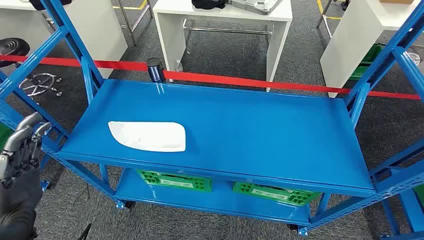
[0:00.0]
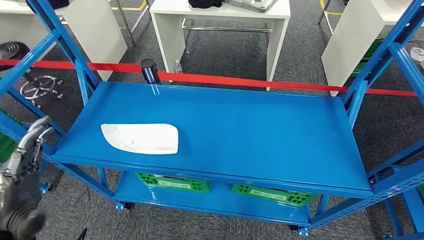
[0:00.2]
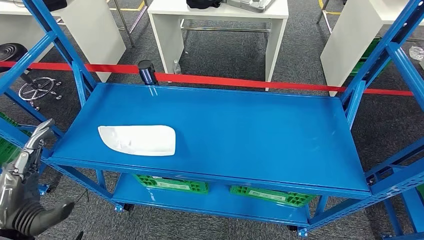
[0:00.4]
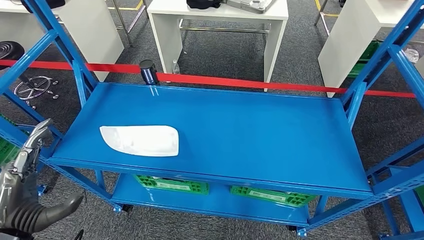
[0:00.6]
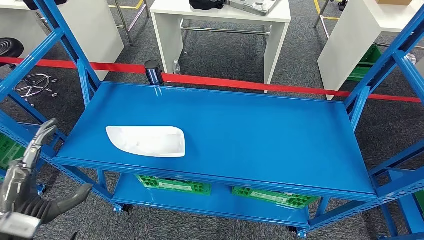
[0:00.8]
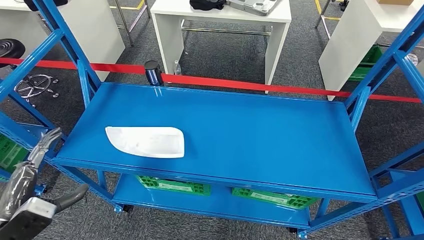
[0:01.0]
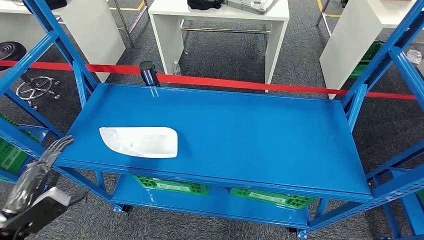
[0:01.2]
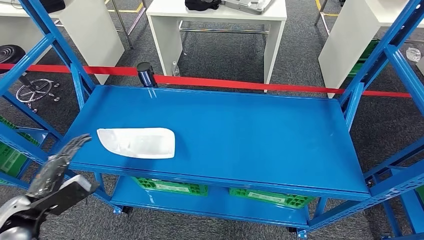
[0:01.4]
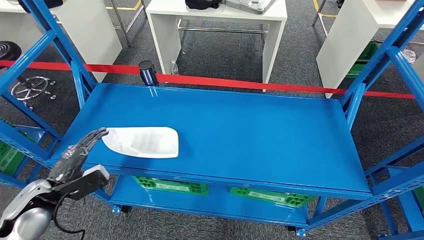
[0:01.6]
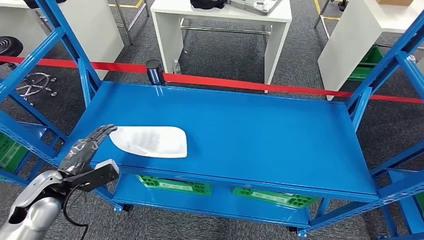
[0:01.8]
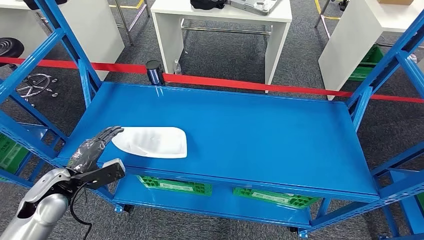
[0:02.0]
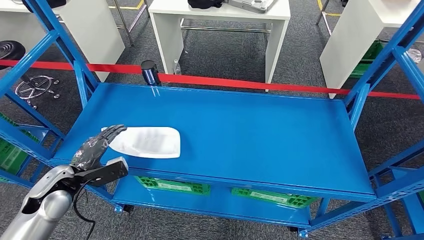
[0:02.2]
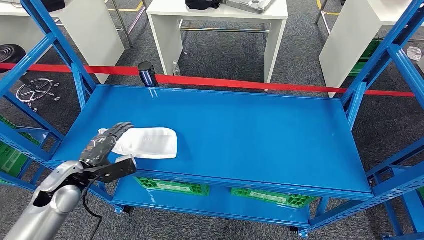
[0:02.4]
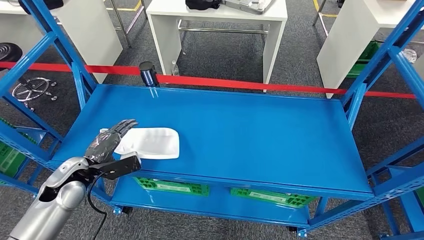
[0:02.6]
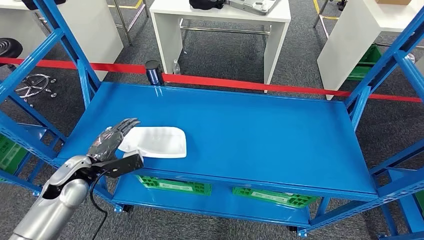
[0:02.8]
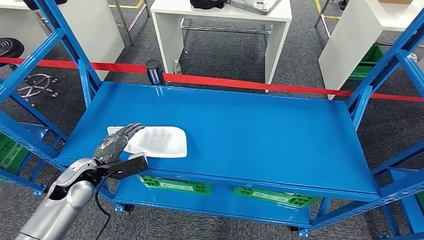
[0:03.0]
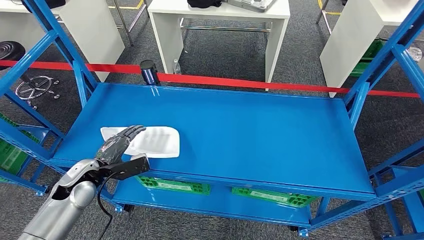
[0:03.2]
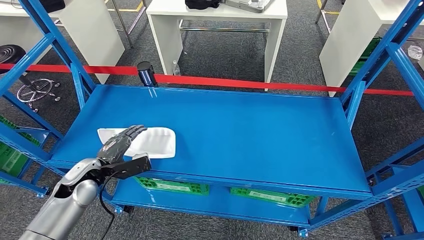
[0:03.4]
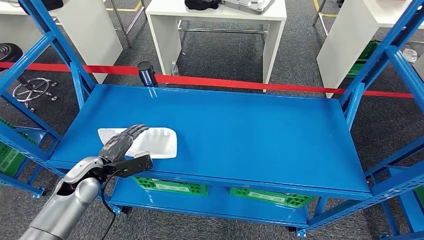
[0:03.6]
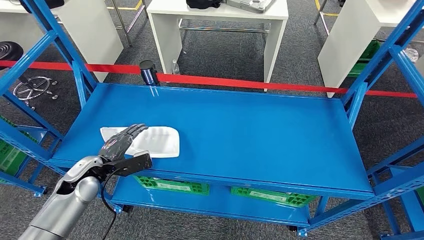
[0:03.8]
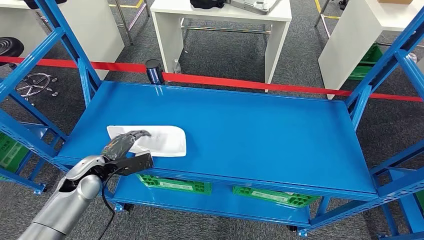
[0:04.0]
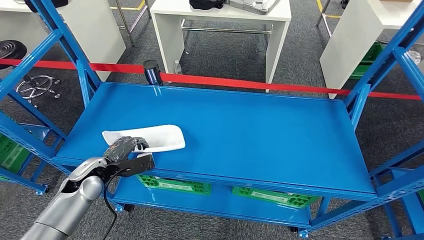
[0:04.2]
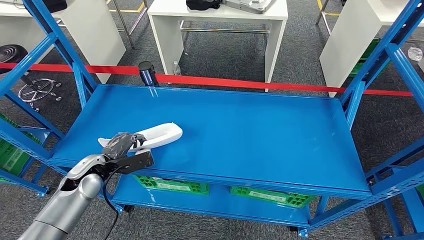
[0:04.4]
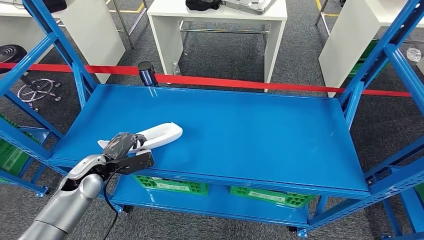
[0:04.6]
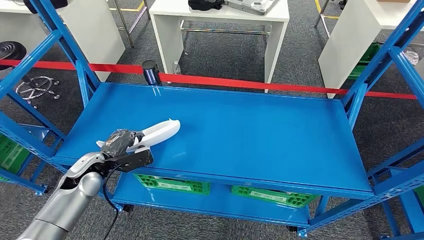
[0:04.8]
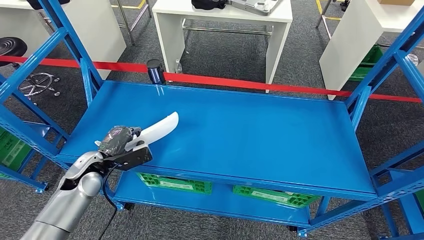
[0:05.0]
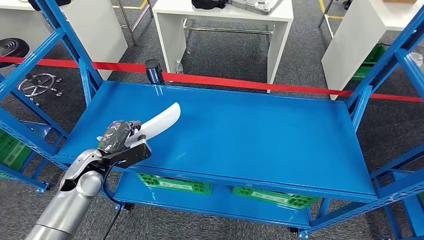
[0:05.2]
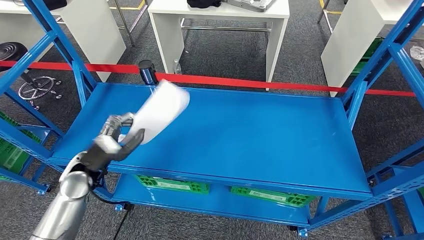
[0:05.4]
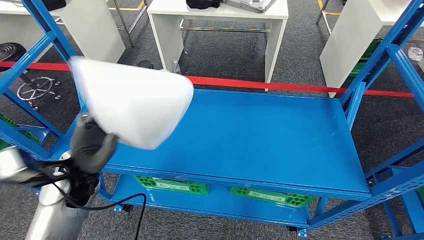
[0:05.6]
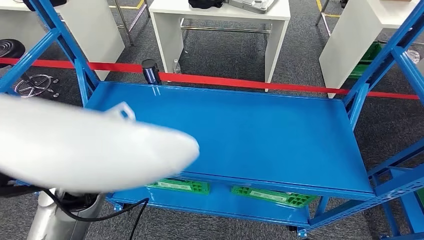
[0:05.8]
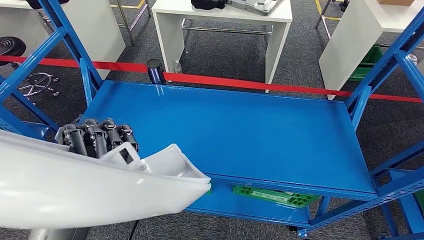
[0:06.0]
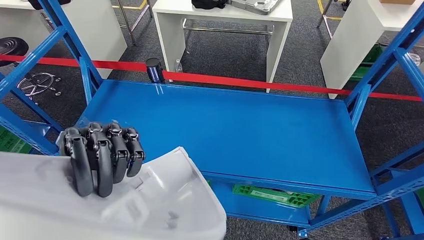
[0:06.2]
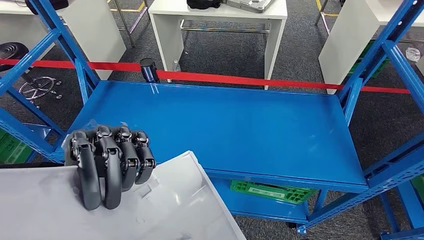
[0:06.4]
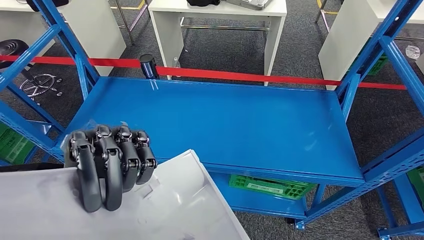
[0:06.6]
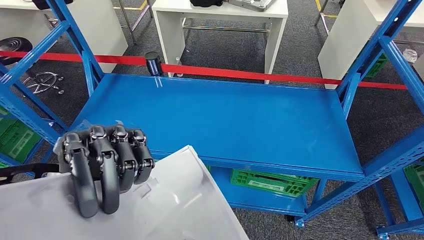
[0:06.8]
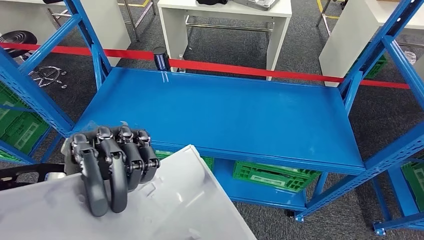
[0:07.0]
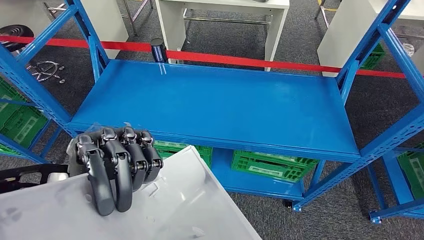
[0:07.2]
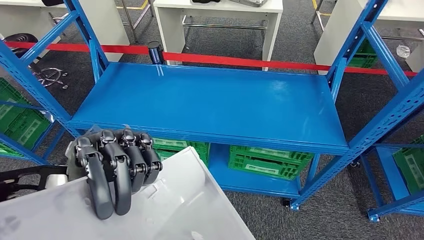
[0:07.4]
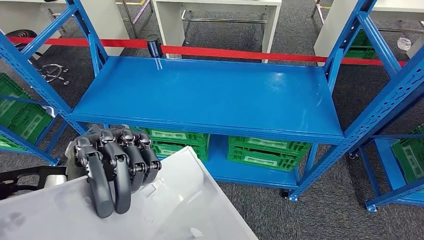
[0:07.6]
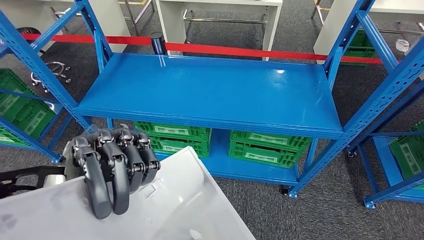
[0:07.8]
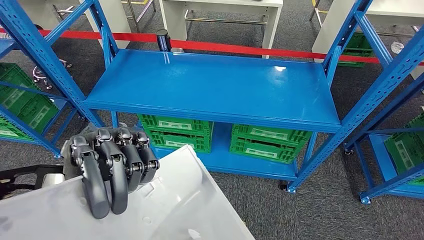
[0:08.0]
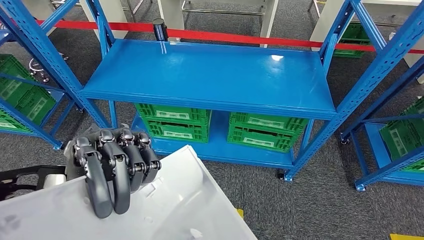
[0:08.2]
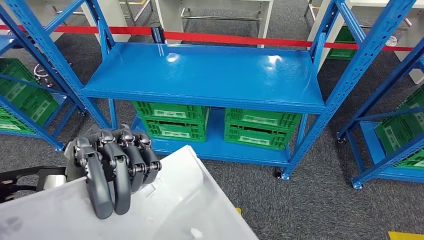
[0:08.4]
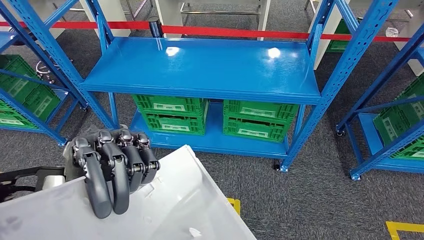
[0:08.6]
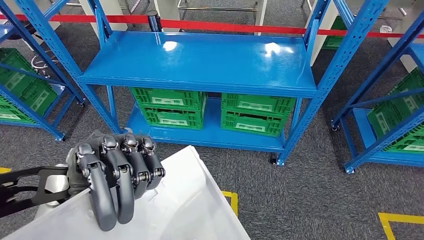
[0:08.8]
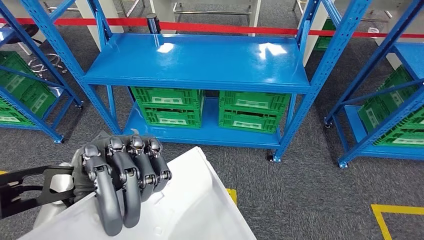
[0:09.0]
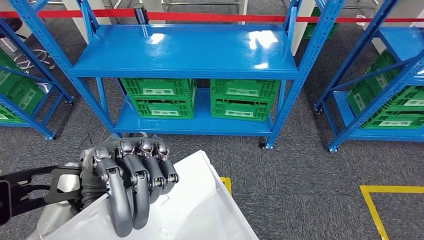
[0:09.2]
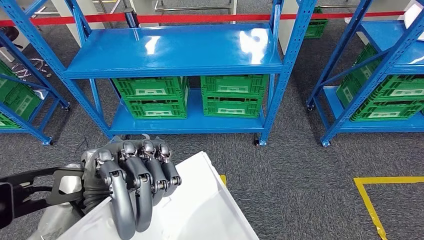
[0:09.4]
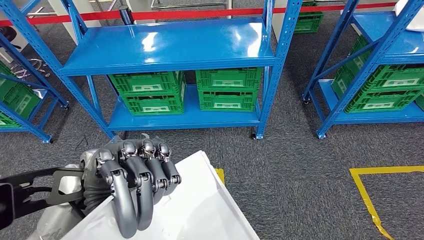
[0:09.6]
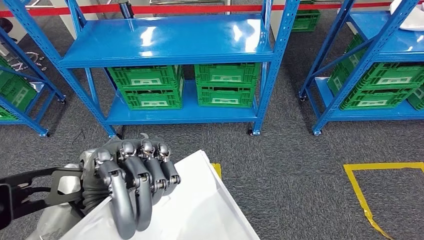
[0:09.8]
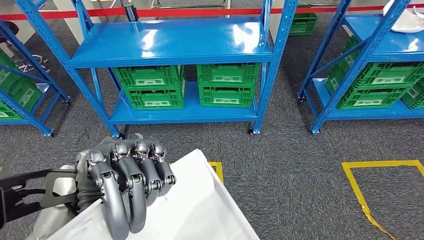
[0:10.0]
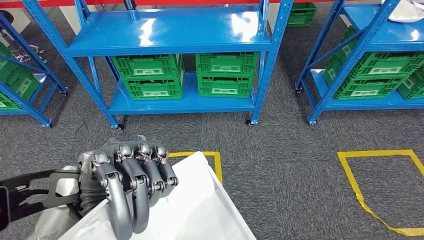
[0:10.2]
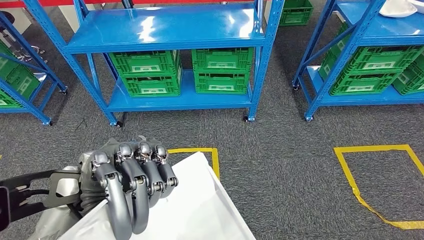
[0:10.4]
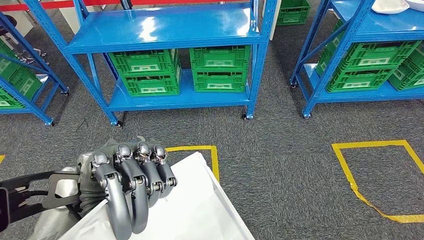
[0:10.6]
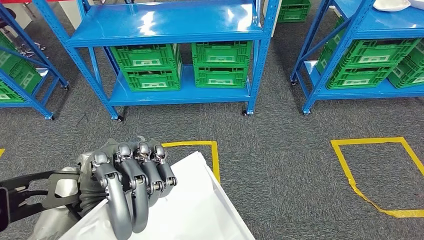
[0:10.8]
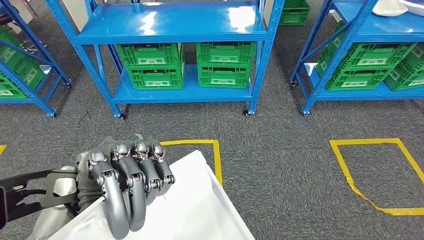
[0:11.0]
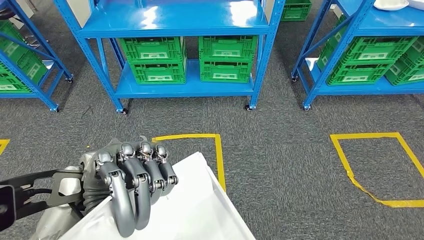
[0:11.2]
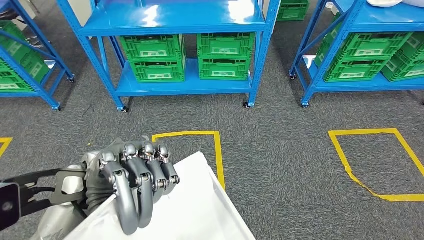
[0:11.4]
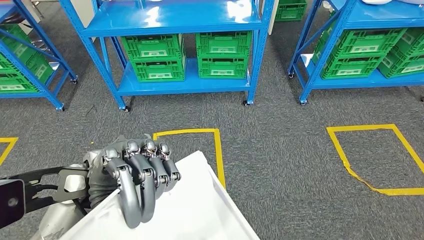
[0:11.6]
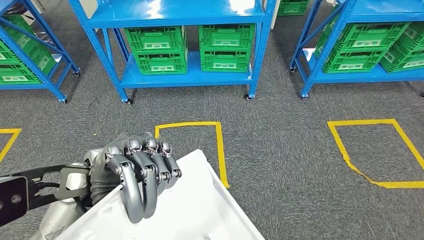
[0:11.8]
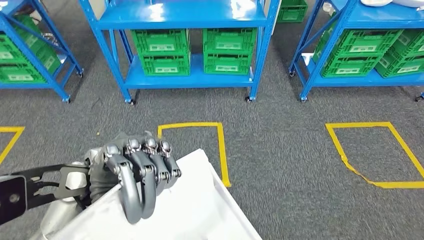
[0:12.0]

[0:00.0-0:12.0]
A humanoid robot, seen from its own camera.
Step, 0:00.0 to 0:06.2: Pick up the small component from the shelf.

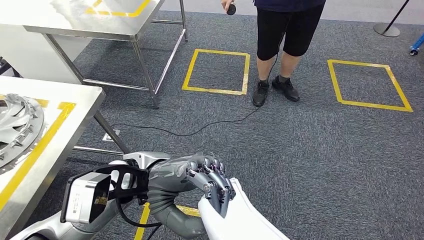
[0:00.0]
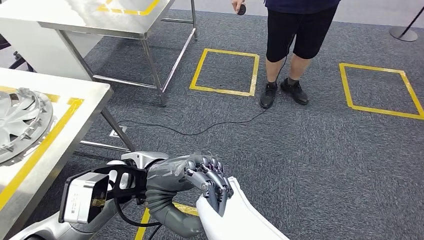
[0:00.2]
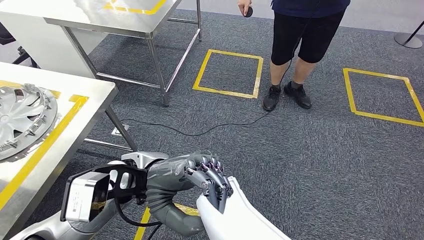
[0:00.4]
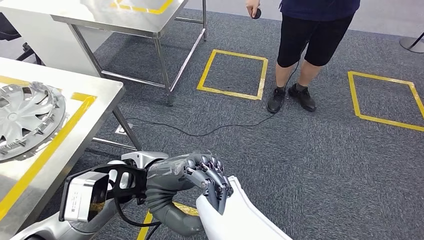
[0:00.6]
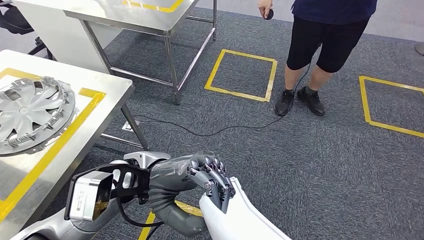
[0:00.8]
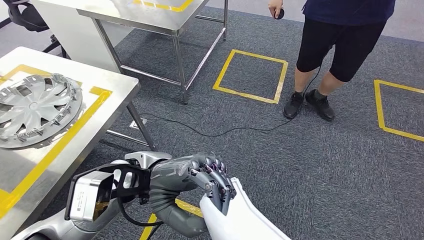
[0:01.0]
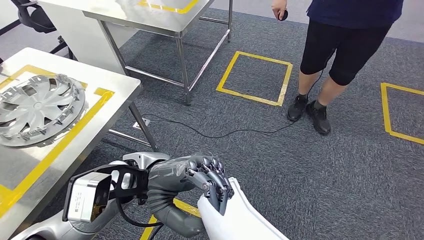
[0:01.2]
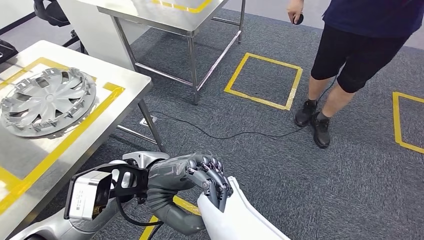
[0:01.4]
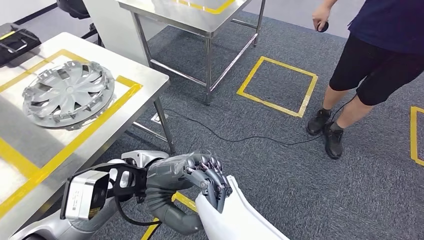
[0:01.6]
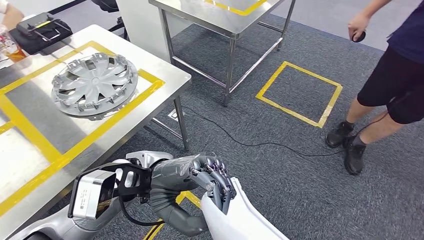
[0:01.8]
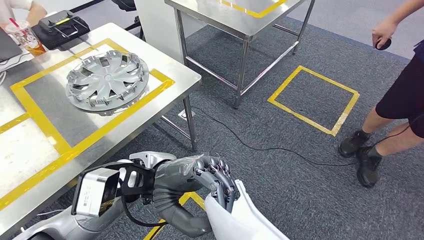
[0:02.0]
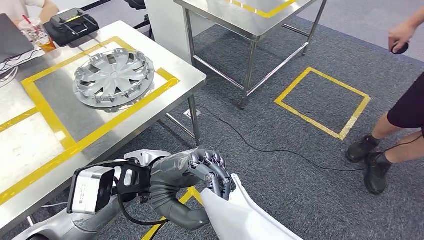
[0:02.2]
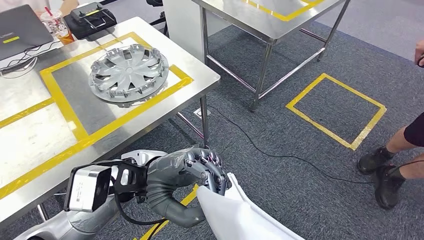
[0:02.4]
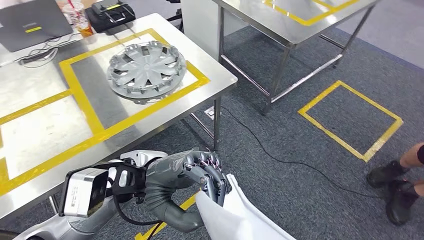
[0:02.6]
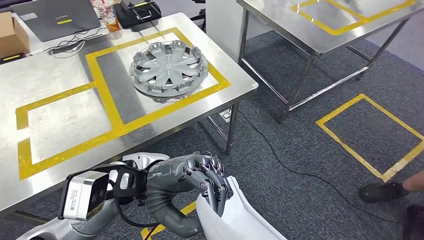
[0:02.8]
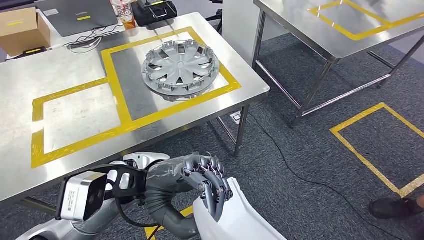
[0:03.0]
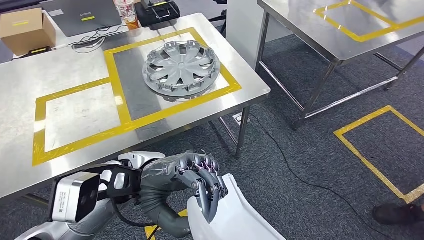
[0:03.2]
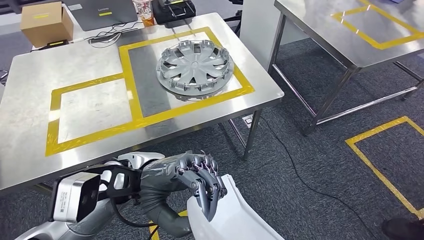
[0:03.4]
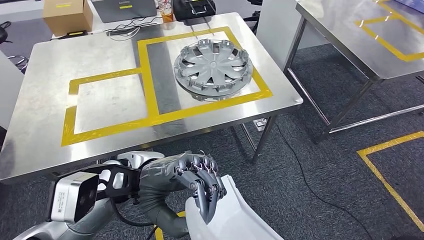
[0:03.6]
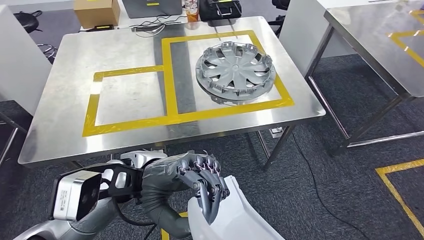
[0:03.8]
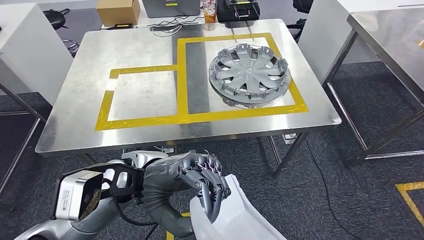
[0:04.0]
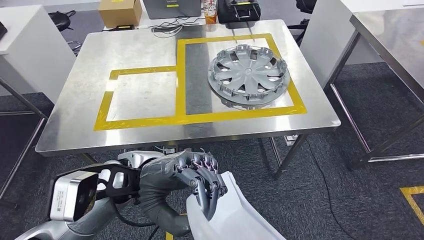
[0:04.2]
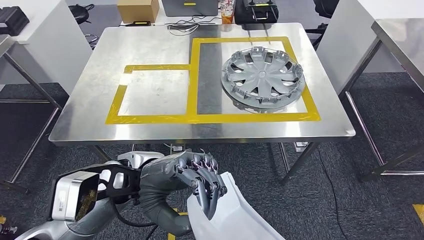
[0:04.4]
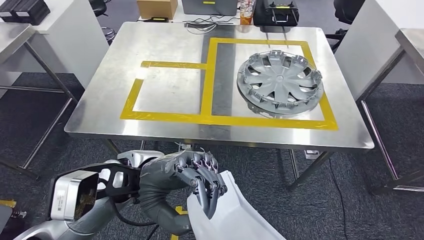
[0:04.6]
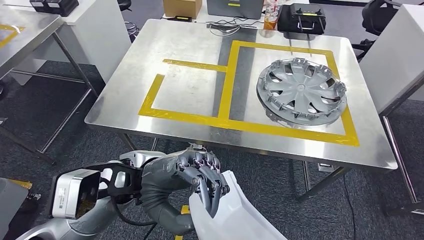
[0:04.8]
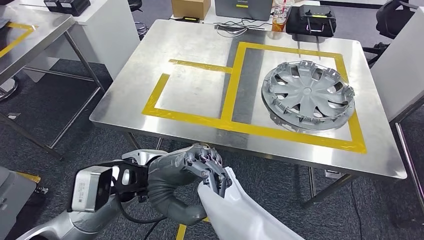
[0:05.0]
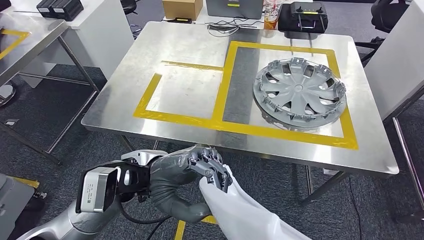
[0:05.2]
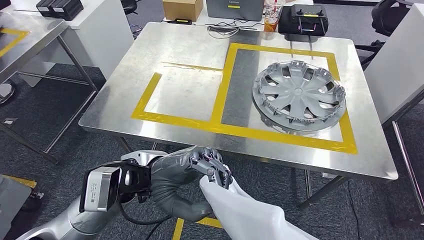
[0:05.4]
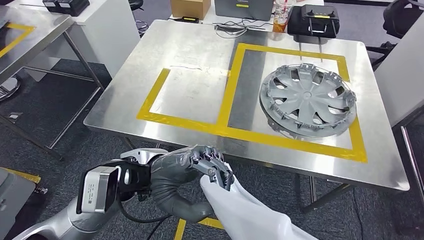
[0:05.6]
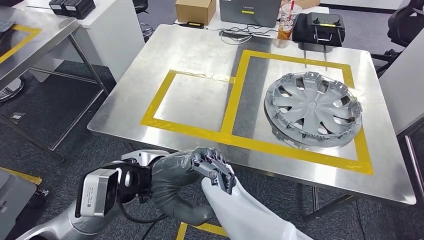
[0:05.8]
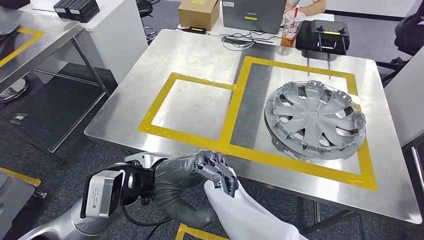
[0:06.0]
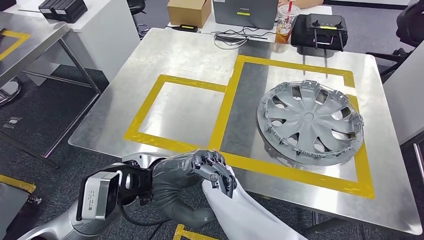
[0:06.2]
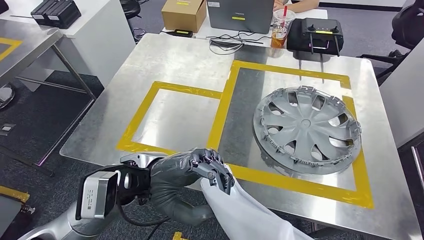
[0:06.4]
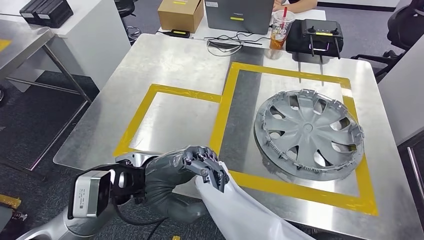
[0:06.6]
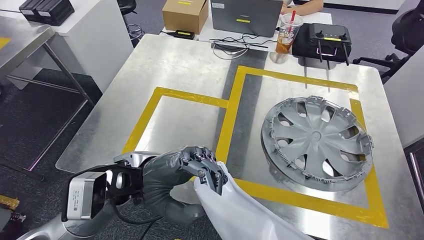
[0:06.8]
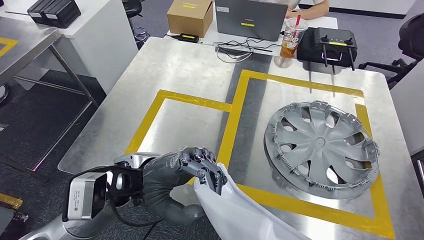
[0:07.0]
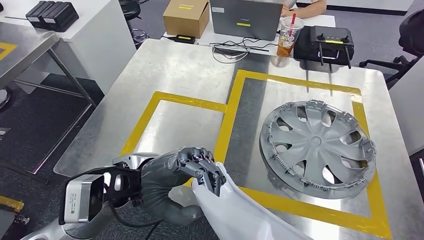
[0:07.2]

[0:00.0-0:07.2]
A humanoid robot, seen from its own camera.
Step, 0:00.0 to 0:02.0: Move the small component to the workbench.
